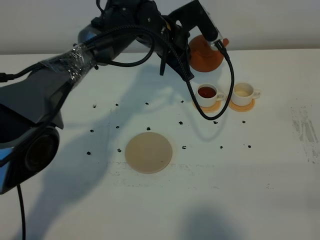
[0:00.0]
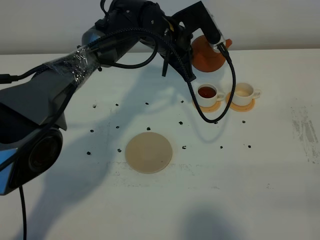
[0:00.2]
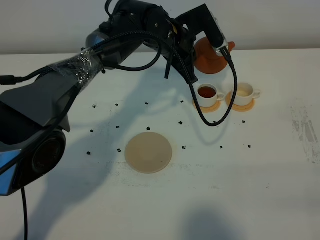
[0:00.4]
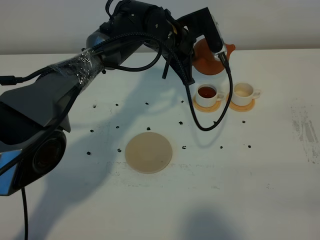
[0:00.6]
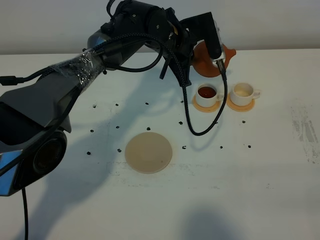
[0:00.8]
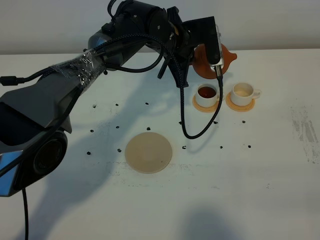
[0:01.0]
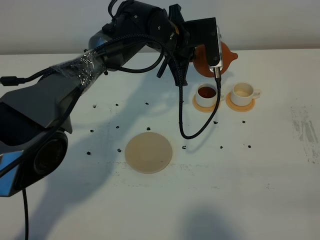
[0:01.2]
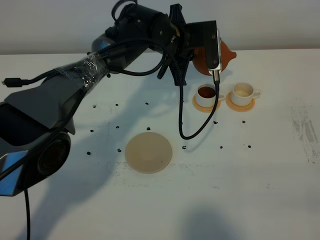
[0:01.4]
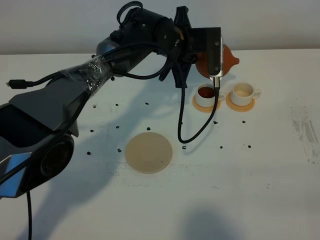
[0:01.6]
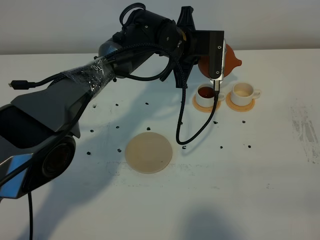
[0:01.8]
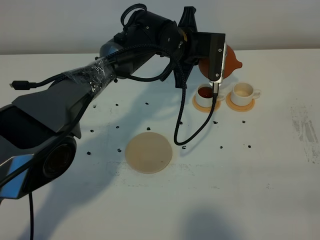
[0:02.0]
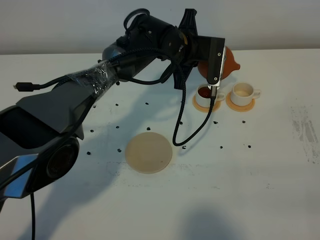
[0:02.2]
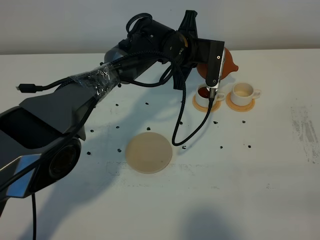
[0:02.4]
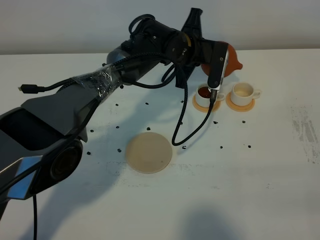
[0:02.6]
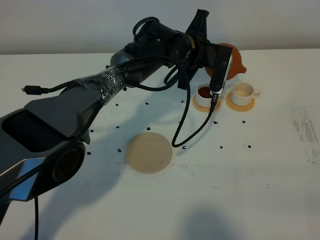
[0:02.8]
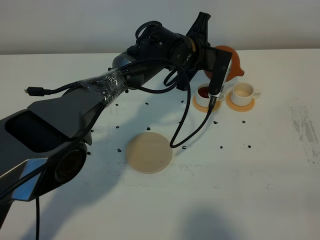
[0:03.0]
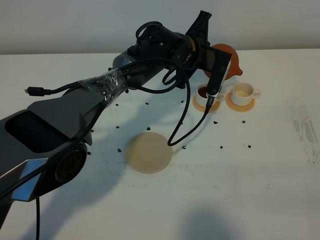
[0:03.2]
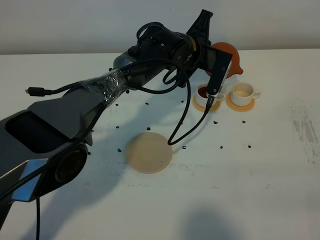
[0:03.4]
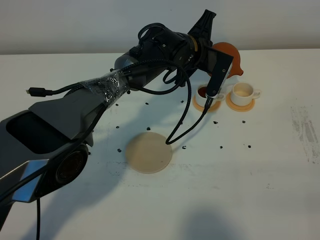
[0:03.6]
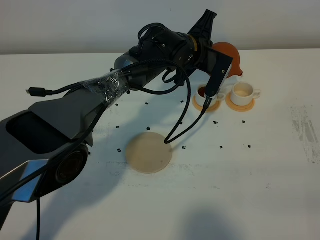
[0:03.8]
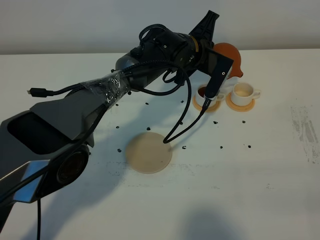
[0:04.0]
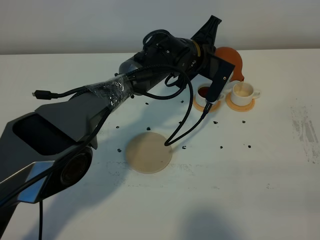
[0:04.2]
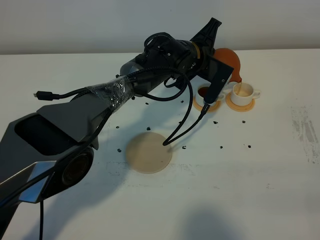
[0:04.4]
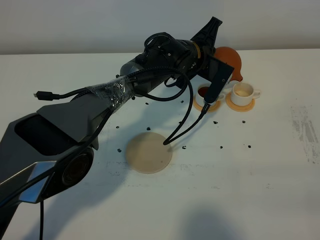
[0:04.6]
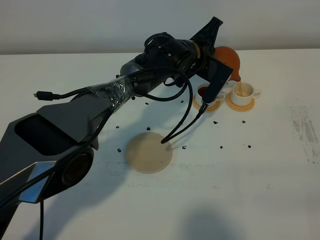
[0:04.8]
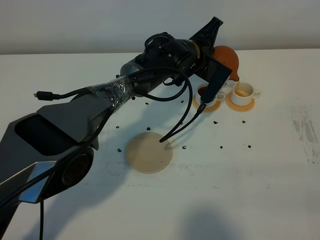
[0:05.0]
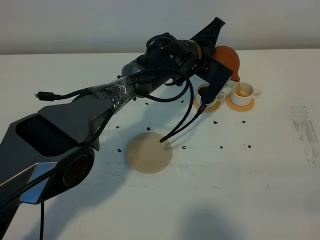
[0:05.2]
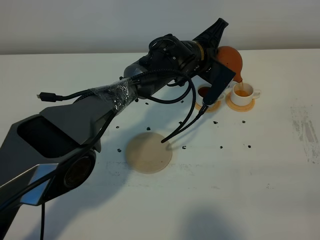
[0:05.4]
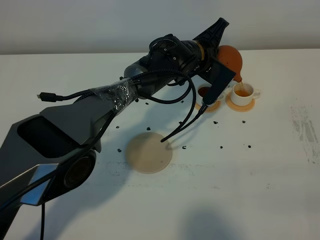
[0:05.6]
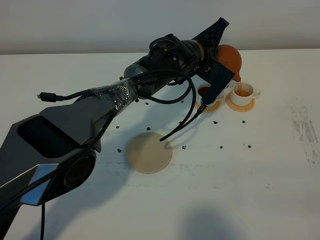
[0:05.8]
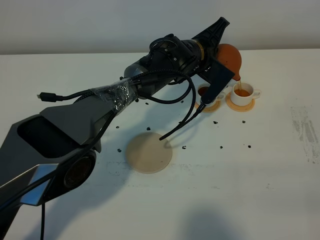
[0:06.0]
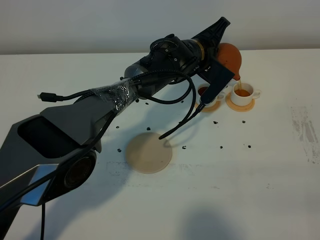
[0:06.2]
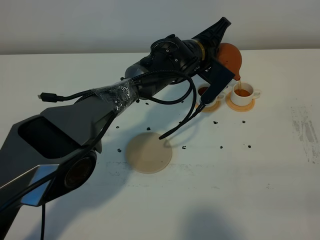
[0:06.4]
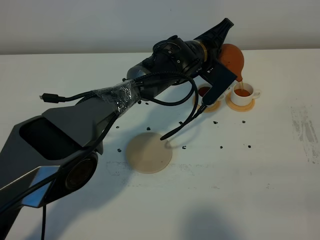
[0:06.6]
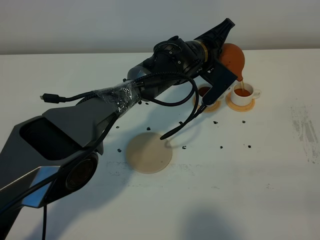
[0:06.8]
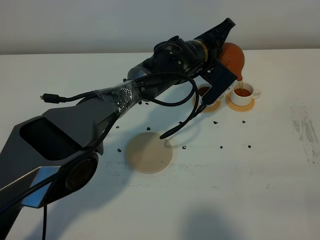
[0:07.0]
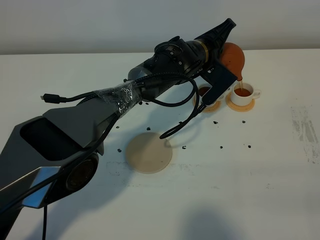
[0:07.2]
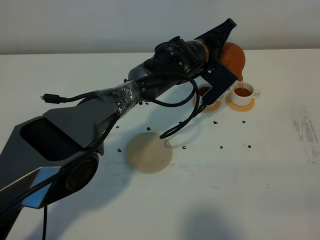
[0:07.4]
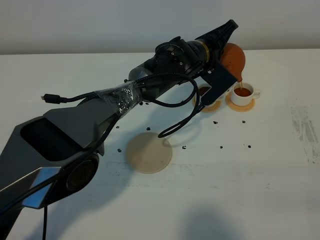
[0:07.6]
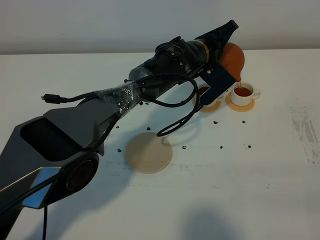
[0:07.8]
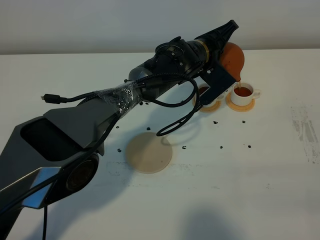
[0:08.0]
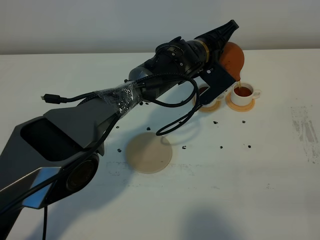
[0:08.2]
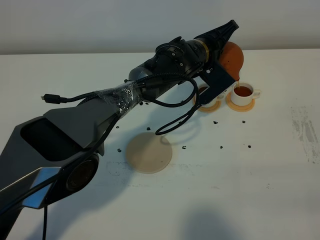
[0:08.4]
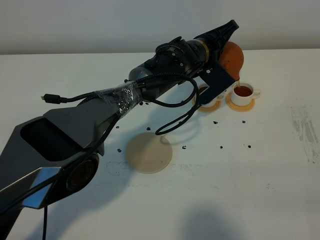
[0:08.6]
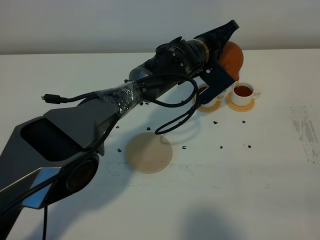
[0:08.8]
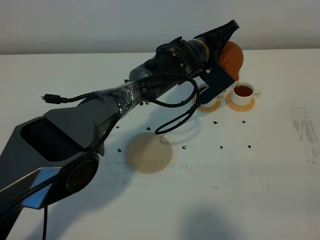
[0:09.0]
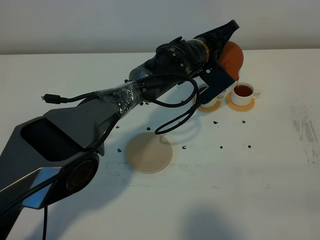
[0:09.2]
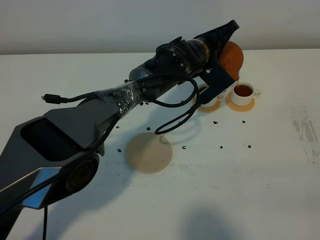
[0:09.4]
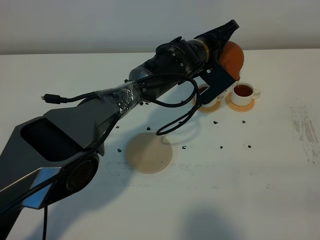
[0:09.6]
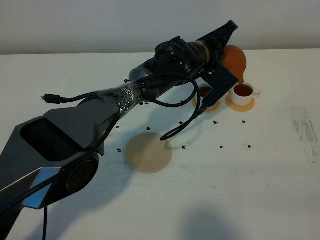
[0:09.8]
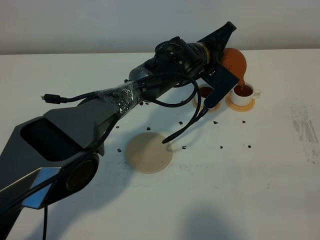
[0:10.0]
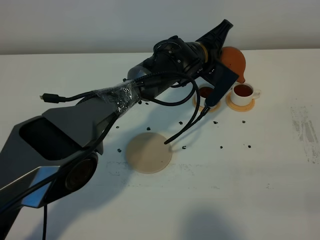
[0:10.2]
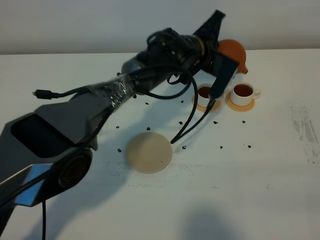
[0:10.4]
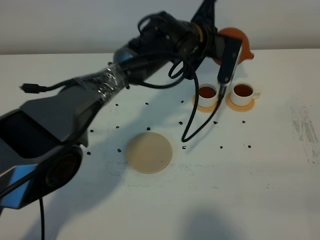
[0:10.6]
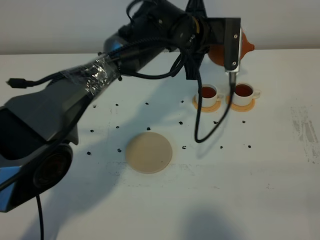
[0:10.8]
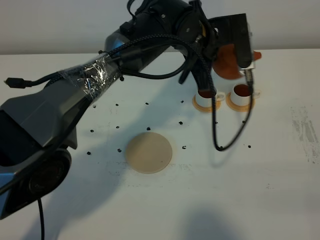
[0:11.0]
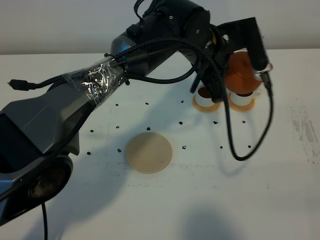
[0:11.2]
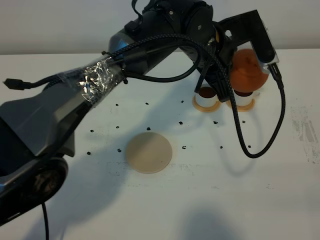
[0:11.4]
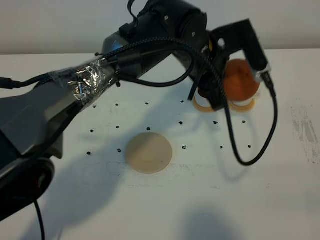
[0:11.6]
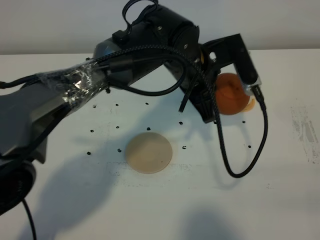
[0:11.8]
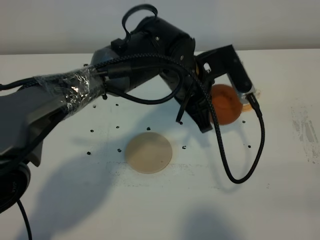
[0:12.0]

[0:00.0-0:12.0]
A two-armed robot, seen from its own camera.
Task of the whole recording: grasp the brown teapot and pour the tea into the two white teacups one by one, put the brown teapot back in its original place.
Step, 0:00.0 to 0:10.2: Pour tea into the teacup with the left gripper.
0:03.0 to 0:04.4: There are only small adjustments of the grippers.
0:04.4 to 0:07.6: The grippers move only a little.
0:07.6 to 0:09.0: Both grippers stay about where they are.
0:10.4 to 0:12.0: The left gripper travels backward by roughly 10 cm.

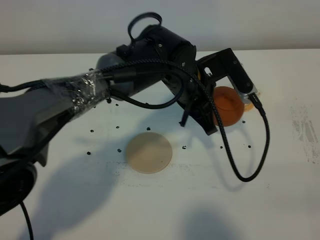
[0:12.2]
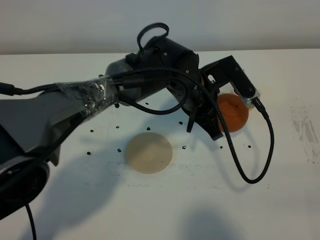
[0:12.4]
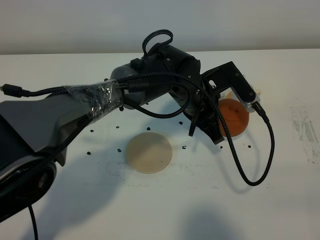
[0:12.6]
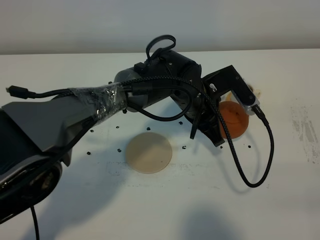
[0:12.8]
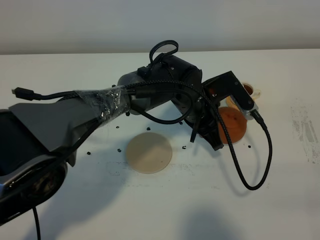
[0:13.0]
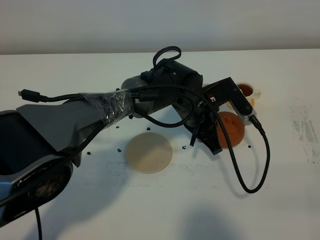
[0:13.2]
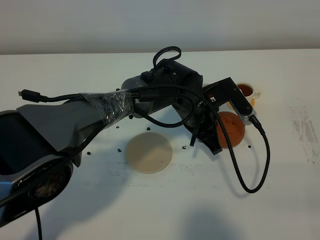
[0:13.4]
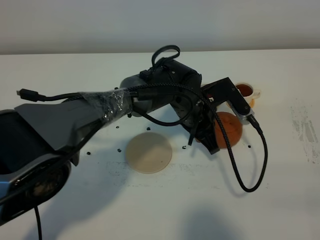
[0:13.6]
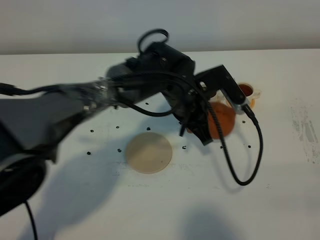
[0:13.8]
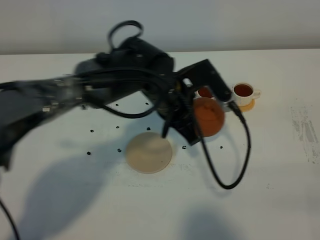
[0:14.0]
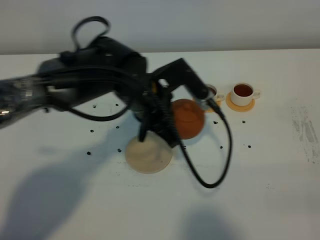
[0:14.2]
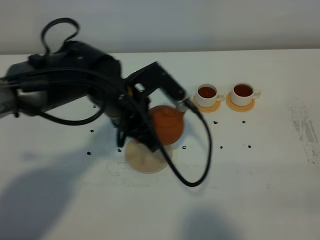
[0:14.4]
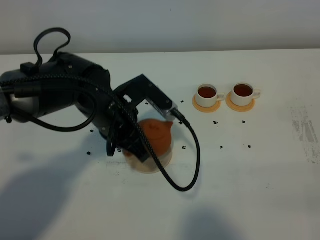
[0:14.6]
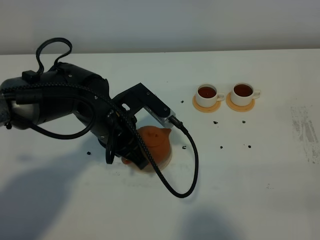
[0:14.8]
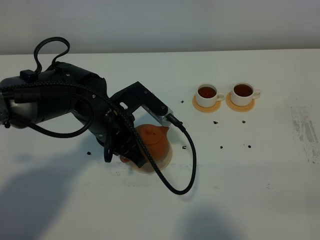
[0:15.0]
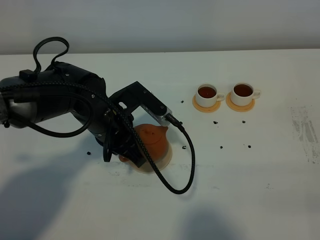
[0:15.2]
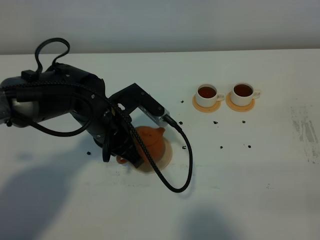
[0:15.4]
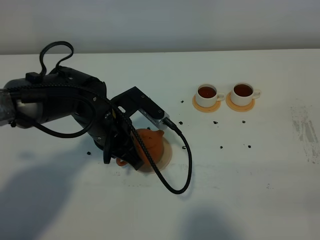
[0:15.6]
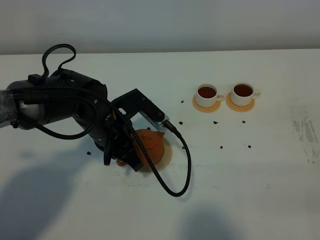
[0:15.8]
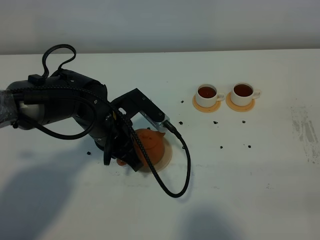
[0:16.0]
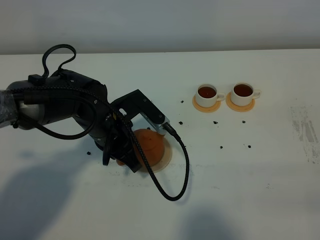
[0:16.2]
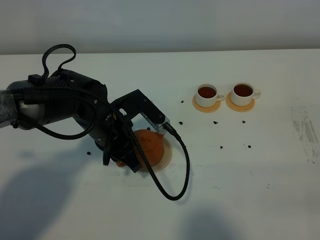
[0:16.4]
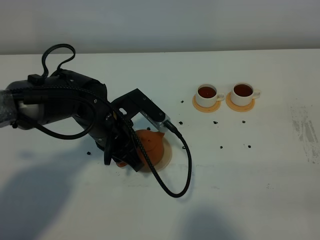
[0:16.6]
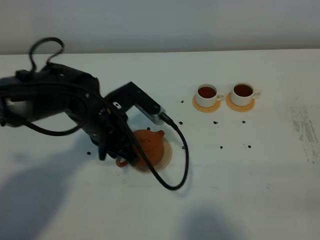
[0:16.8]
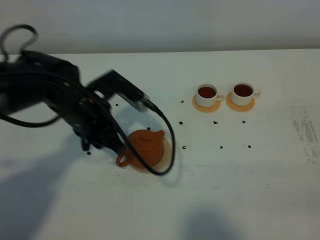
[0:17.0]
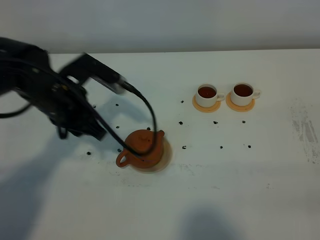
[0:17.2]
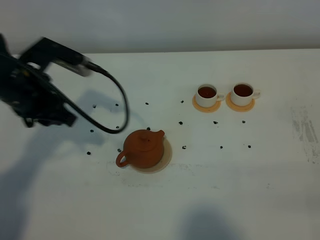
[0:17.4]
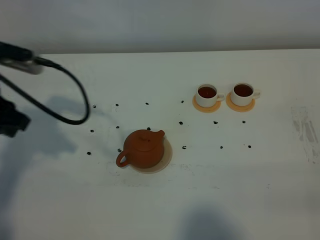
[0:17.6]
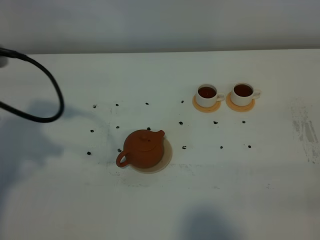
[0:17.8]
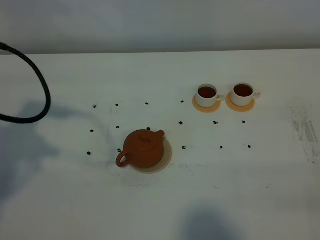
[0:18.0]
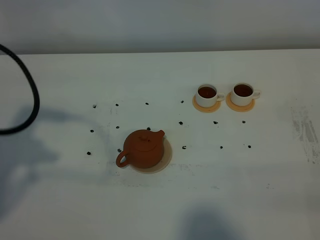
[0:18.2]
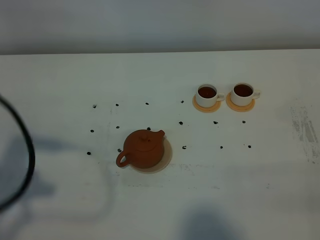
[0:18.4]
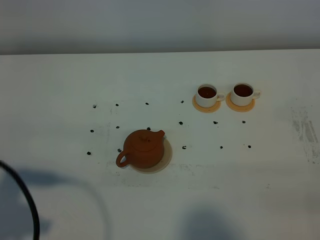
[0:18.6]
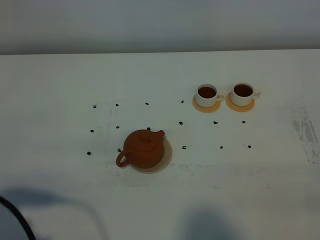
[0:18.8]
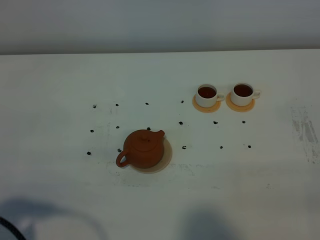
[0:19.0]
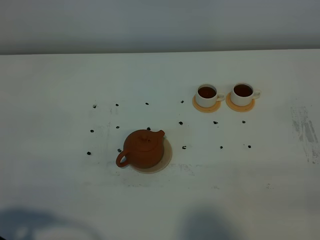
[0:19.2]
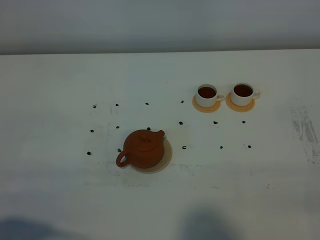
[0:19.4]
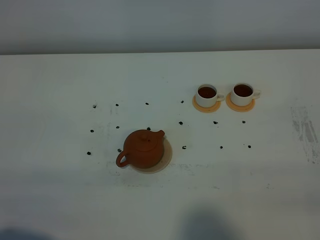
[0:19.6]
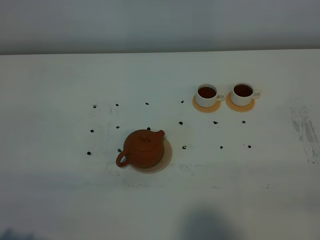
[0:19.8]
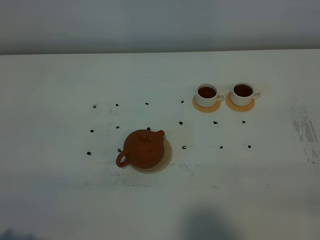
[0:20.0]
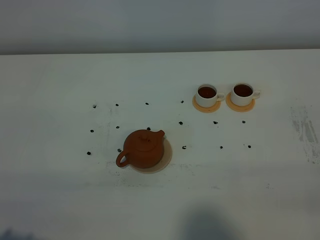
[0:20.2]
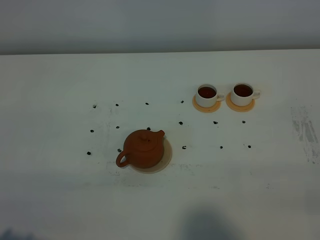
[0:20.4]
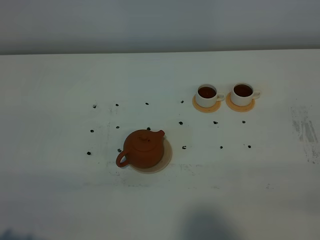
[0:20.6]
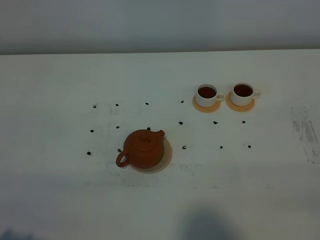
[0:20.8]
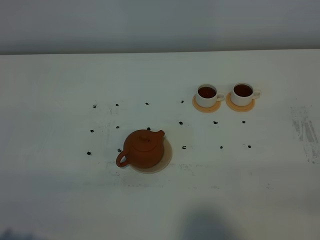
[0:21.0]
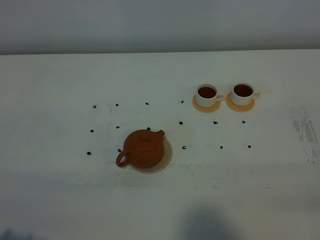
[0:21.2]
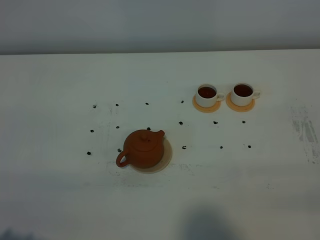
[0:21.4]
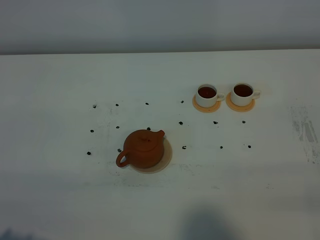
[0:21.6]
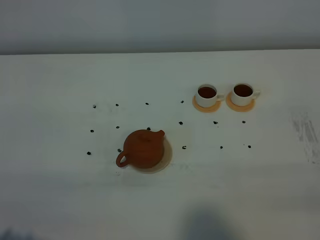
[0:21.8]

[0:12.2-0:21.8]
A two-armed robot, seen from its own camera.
Task of the whole recording: grasp the brown teapot and pour the tea into the two white teacups one by one, put the brown teapot back in its original place.
0:13.8 to 0:15.4: The left gripper is displaced to the left by roughly 15 cm.
0:15.4 to 0:17.0: The left gripper opens up.
0:17.0 to 0:18.6: The left gripper is displaced backward, to the left and upward by roughly 30 cm.
0:18.6 to 0:20.2: The left gripper is displaced backward by some 10 cm.
0:20.2 to 0:21.8: Both grippers stay put.
